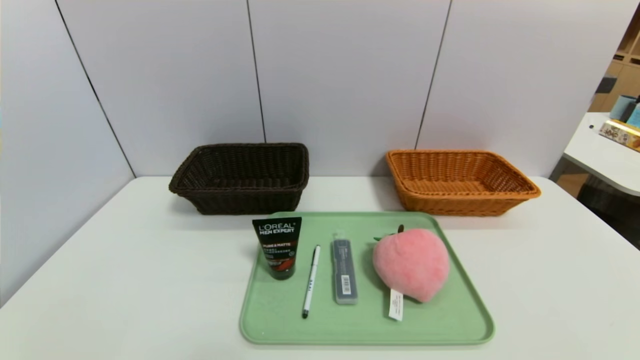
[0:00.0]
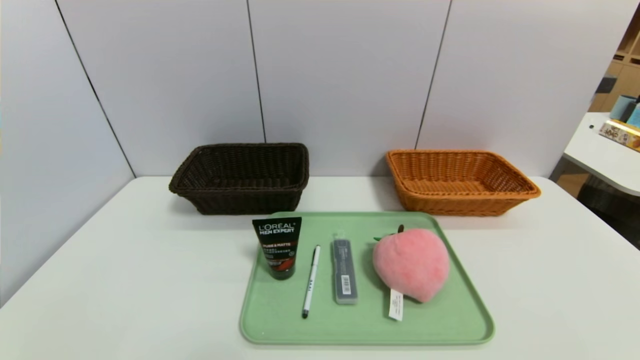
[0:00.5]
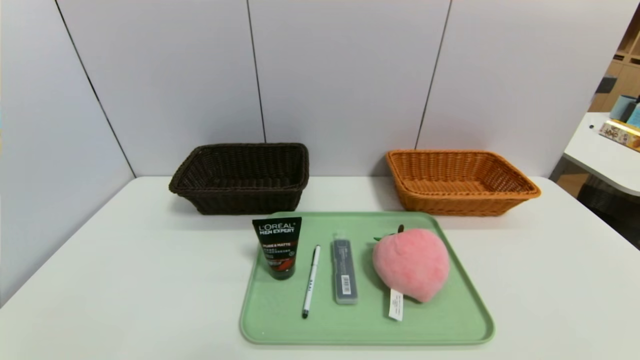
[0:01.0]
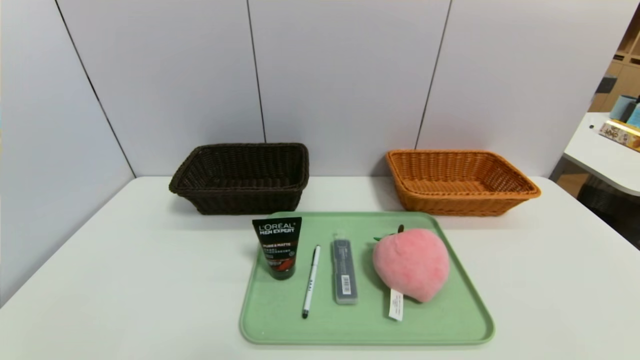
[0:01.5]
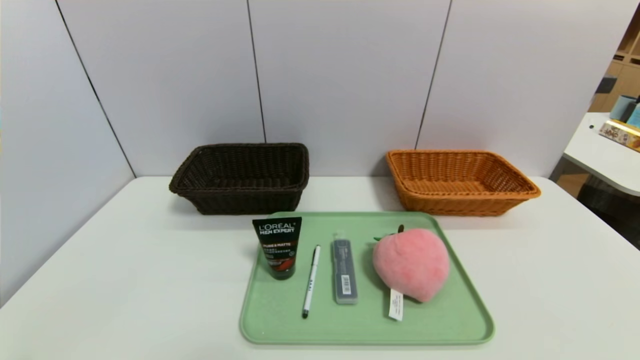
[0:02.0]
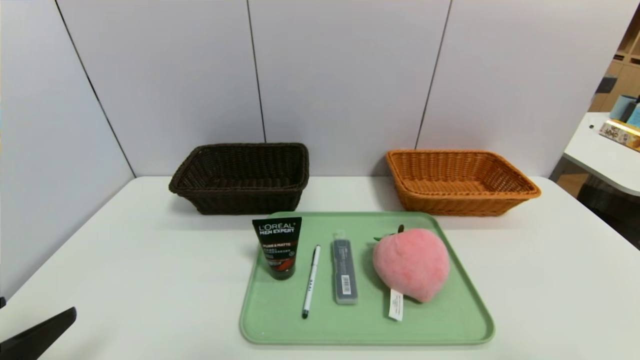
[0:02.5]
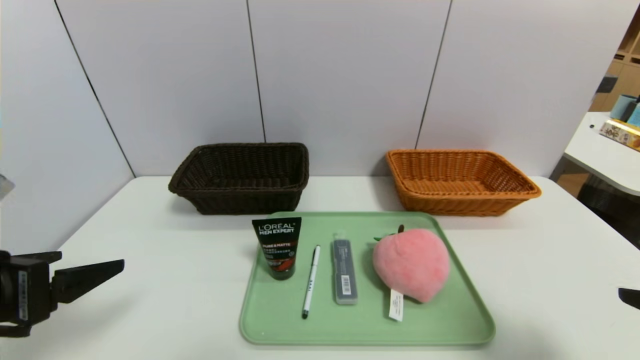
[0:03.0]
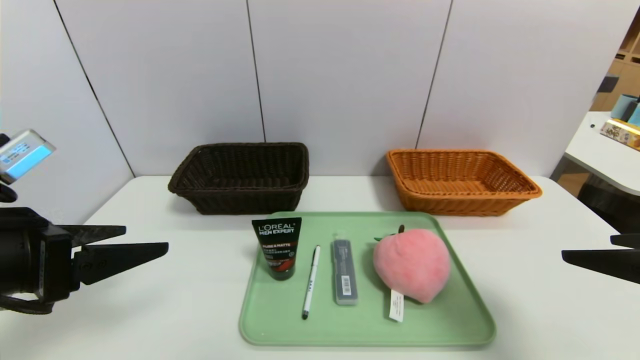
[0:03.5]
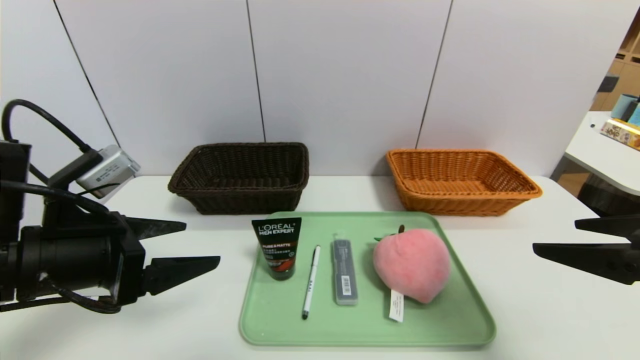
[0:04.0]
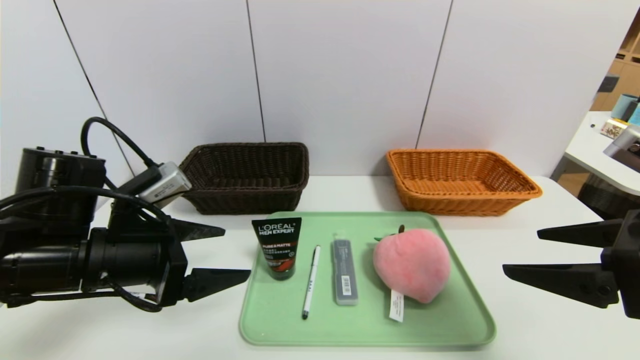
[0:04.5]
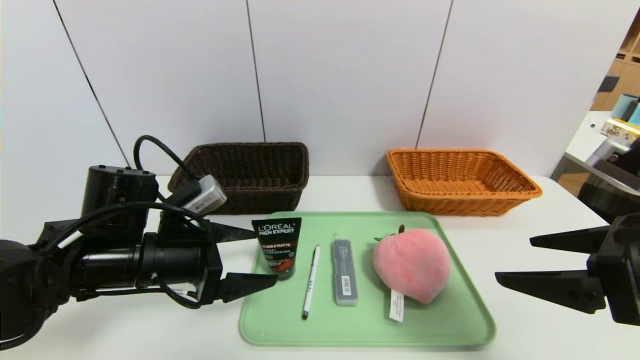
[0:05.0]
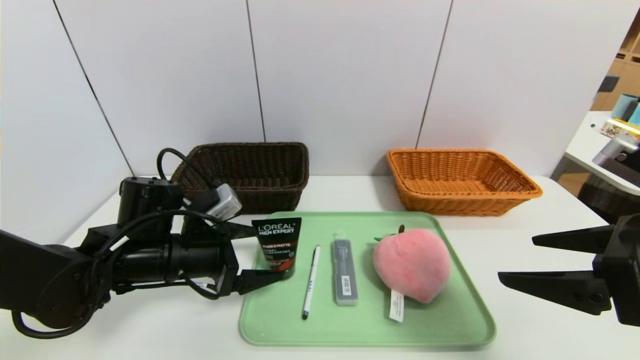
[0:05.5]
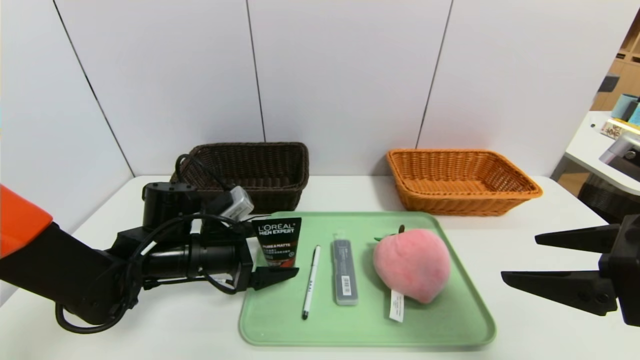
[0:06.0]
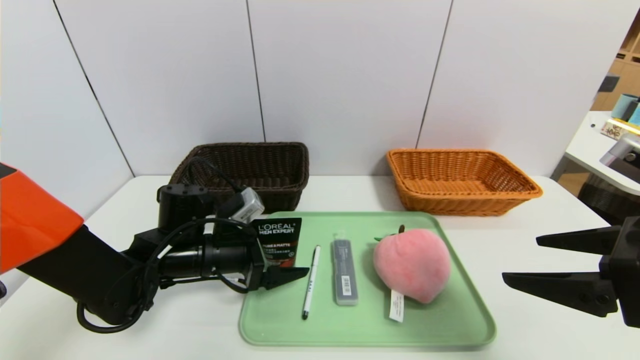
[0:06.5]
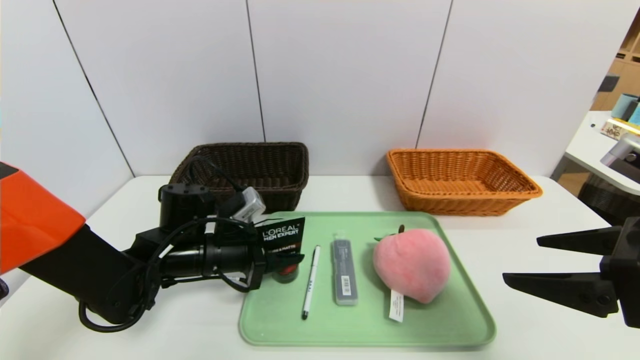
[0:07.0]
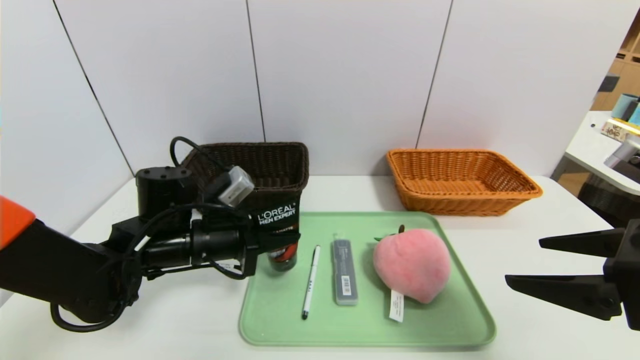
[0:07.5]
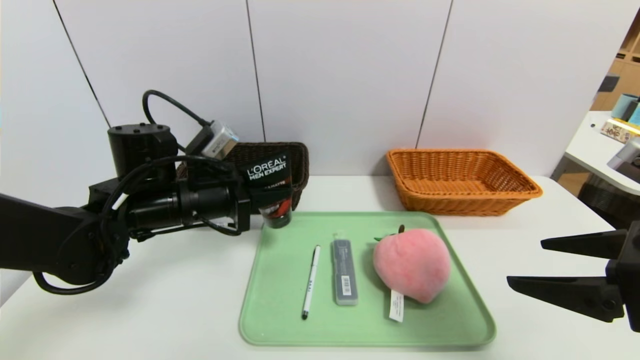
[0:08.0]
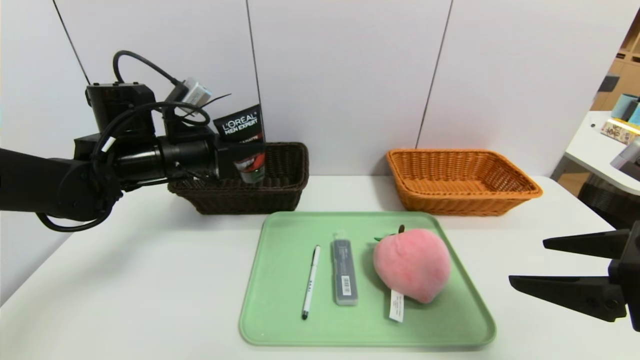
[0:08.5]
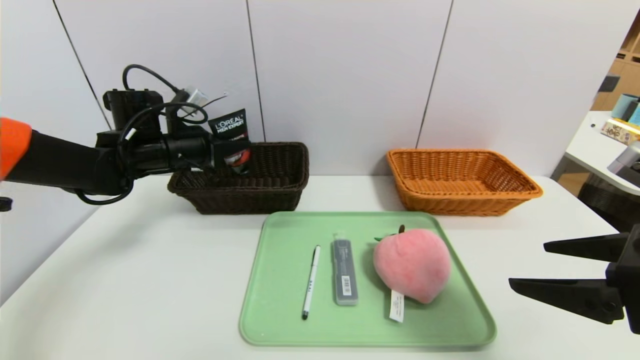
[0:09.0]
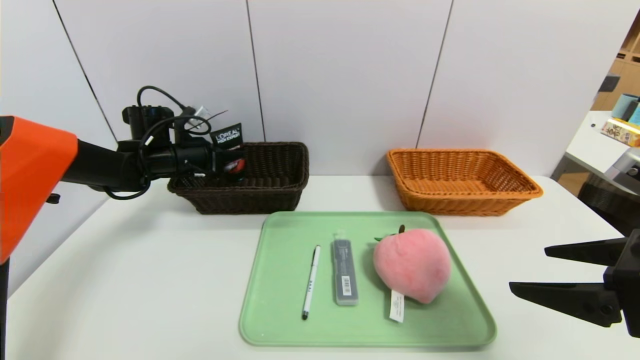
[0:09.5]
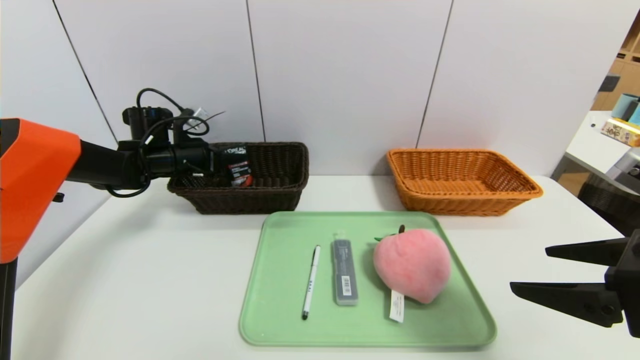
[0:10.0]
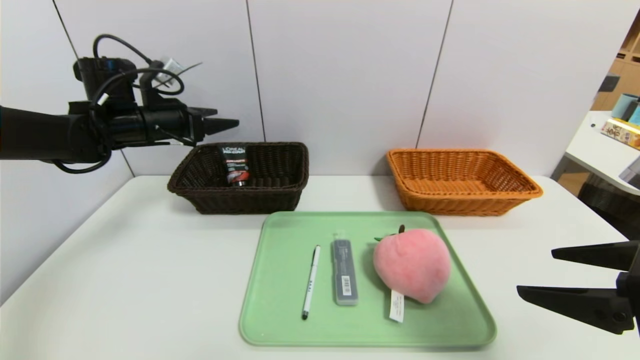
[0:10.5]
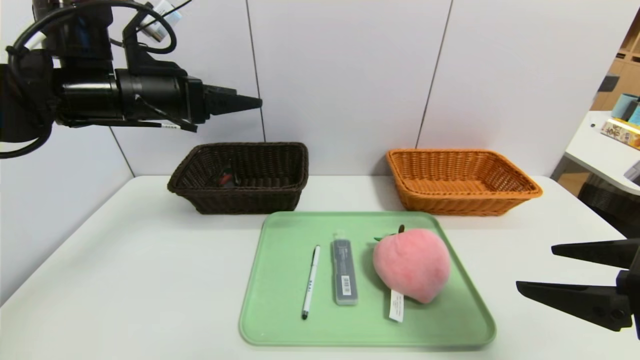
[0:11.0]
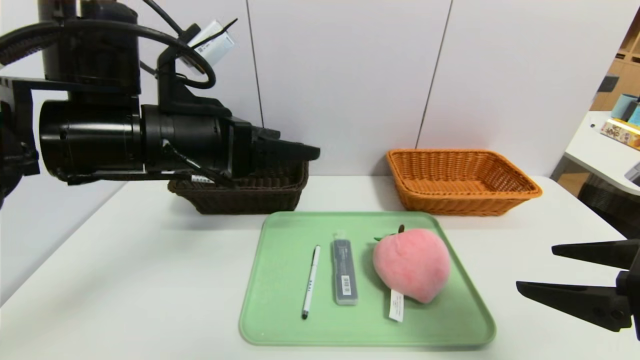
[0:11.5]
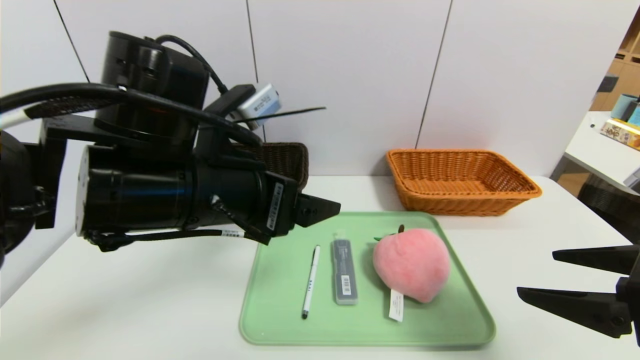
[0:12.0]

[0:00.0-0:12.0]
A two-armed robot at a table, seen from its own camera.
Task of the whole recording: place the food in the right basket with the right gripper, and place the non food items in the left basket with the left gripper.
Step, 0:00.0 to 0:10.0: Grasp the soft cleanser and put it in the left basket.
0:02.0 to 0:04.0: The right gripper is displaced forward and upward by approximately 20 cm. Meanwhile the left gripper is displaced forward by about 20 cm.
0:04.0 to 0:06.0: The left gripper is displaced downward, forward and to the right by roughly 15 cm.
0:06.0 to 0:08.0: The left gripper goes about 10 cm upward, and closes its fingers.
0:08.0 to 0:10.0: The left gripper moves forward and to the left, some 20 cm, and opens its fingers.
0:10.0 to 0:12.0: The left gripper is displaced backward and to the right by about 30 cm, and opens its fingers.

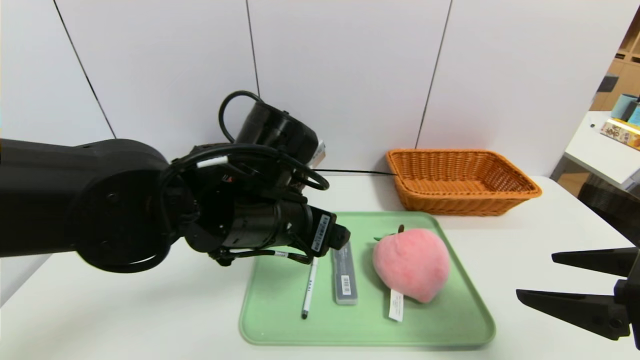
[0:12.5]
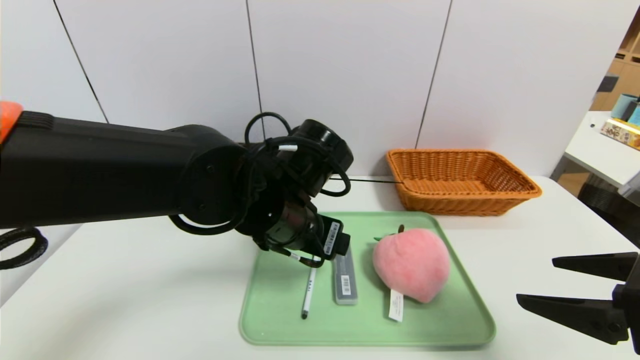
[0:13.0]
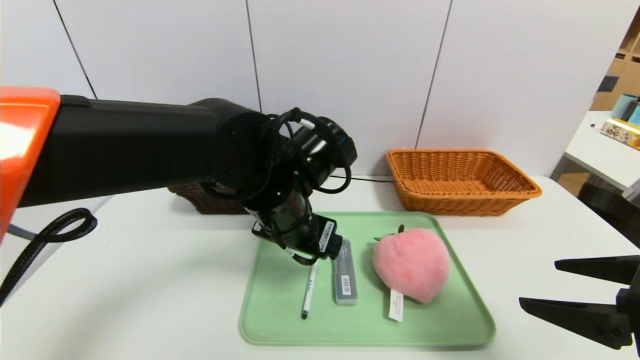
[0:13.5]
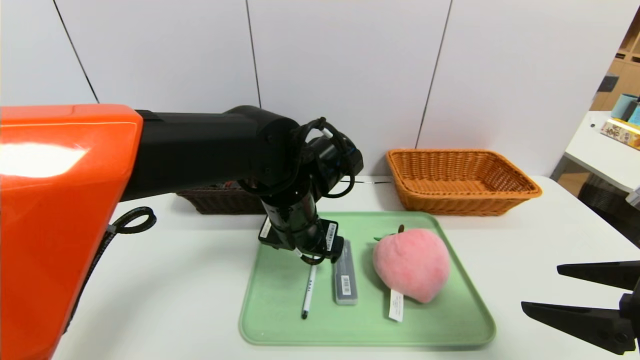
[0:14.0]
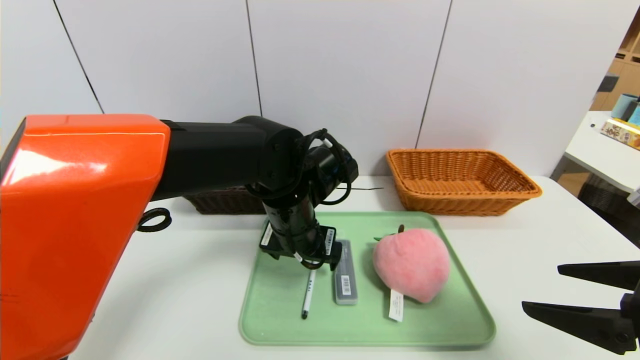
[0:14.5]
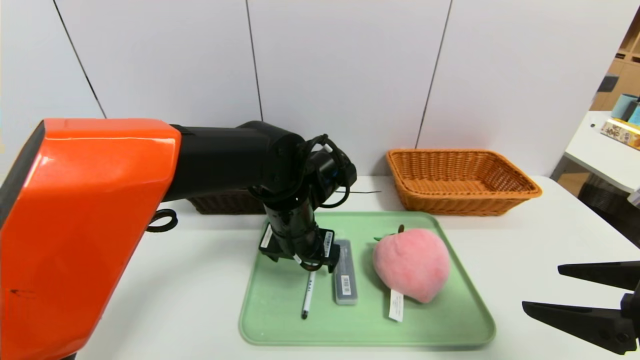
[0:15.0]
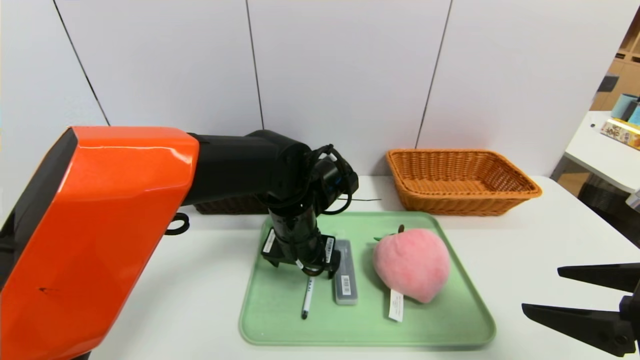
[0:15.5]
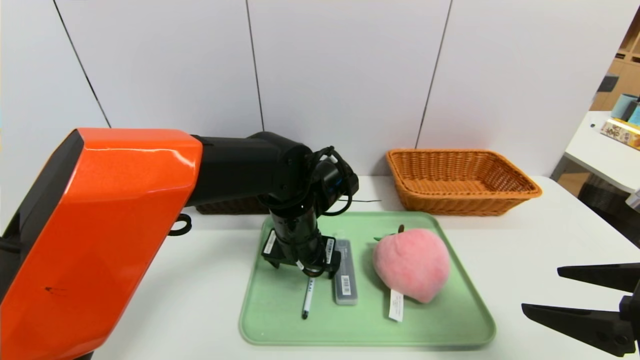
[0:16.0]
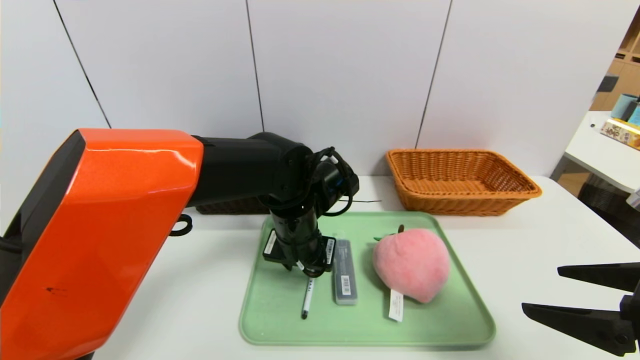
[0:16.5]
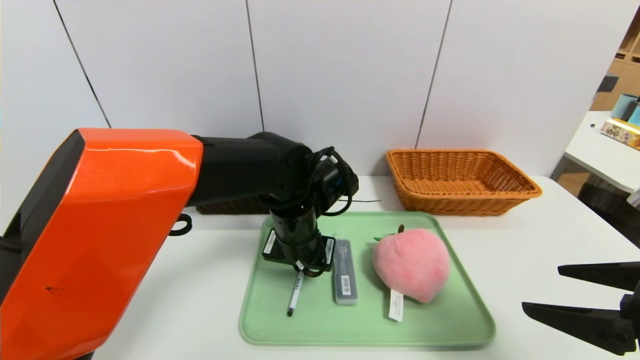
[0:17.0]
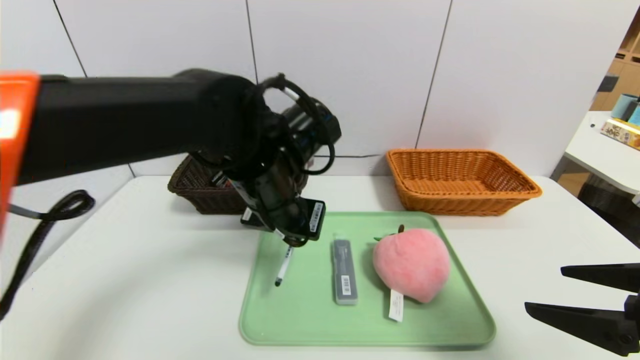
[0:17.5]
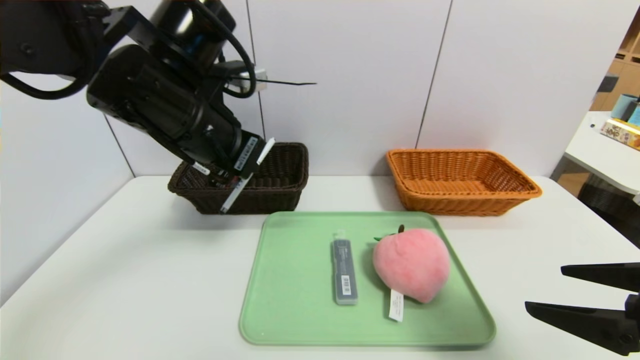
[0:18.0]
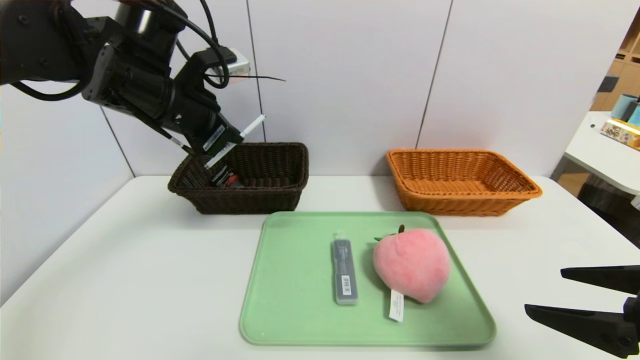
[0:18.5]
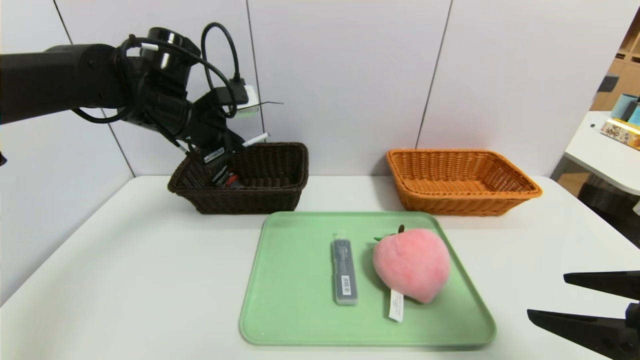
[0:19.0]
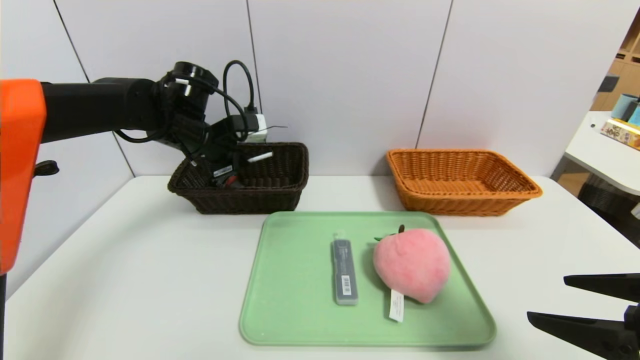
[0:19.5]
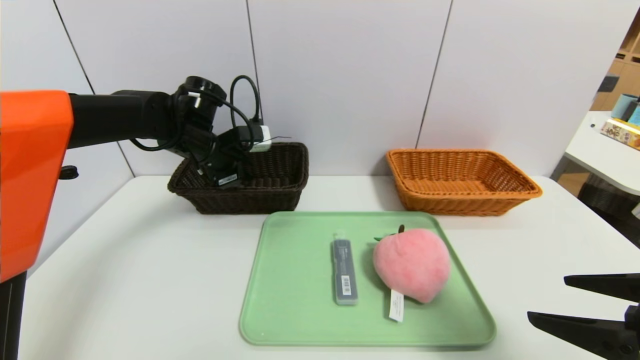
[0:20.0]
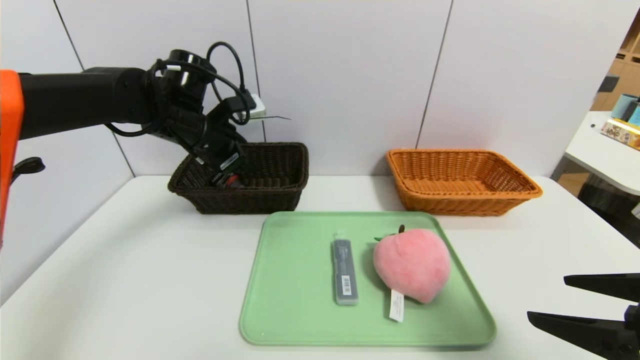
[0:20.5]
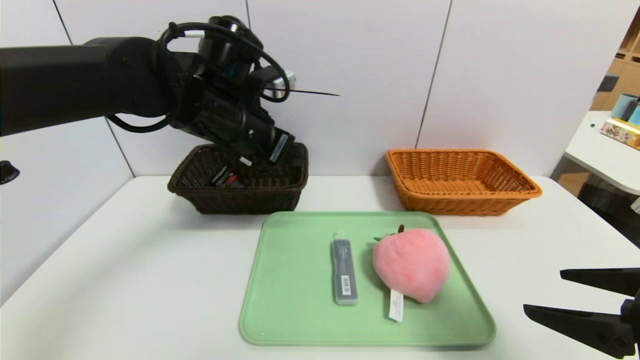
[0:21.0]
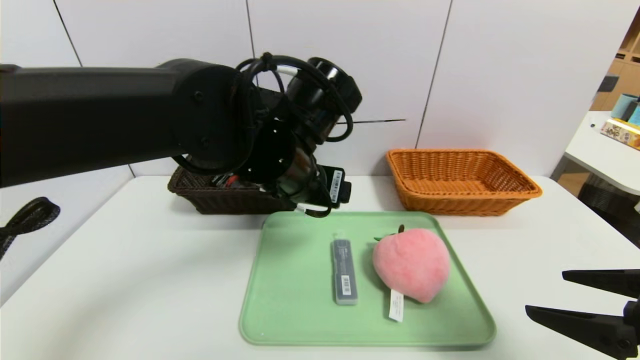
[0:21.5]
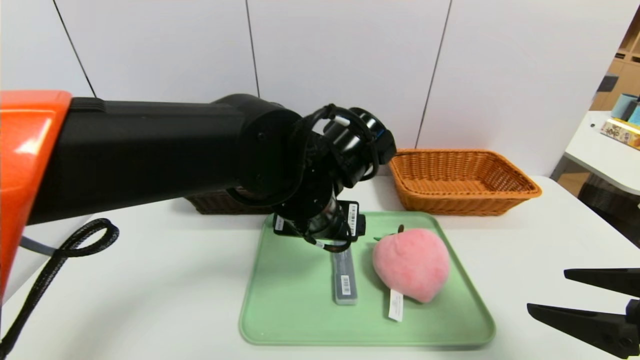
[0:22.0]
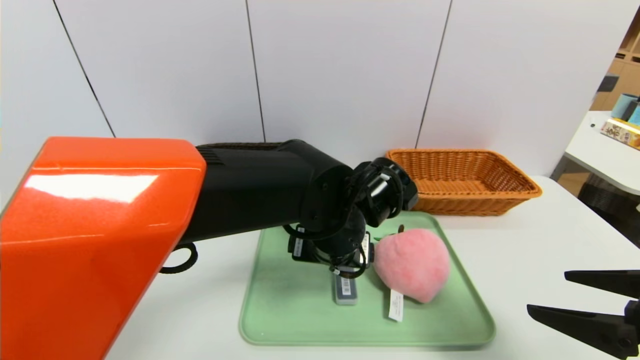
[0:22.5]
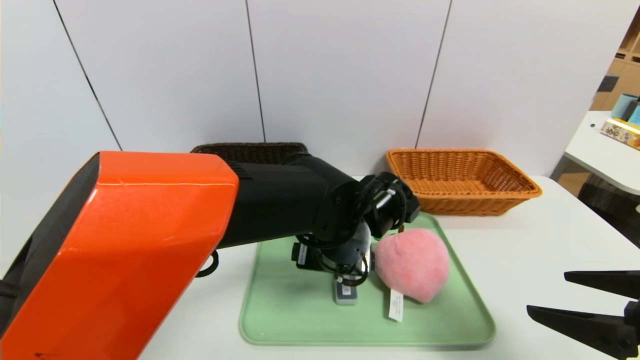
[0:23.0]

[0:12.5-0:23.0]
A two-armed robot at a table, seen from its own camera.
Task of the whole recording: place the food in the right basket with the right gripper, and place the non food items in the left basket with the left gripper.
Step, 0:12.5 to 0:20.0: Grasp the ballpoint pen and put it in the left basket.
0:12.5 to 0:14.5: The left gripper is displaced forward by about 5 cm.
0:14.5 to 0:16.5: The left gripper closes its fingers.
0:16.5 to 0:19.0: The left gripper moves to the left, upward and forward, about 25 cm, and closes up.
0:19.0 to 0:21.0: The left gripper shifts some 10 cm to the right and backward, and opens.
0:21.0 to 0:23.0: The left gripper moves to the right, downward and backward, roughly 20 cm.
